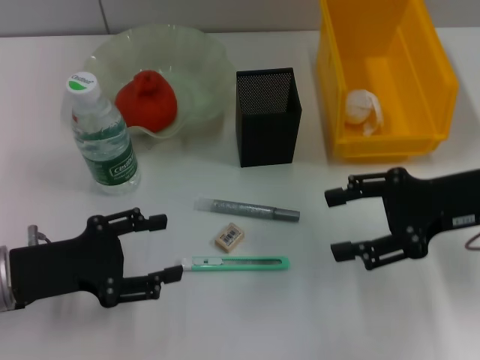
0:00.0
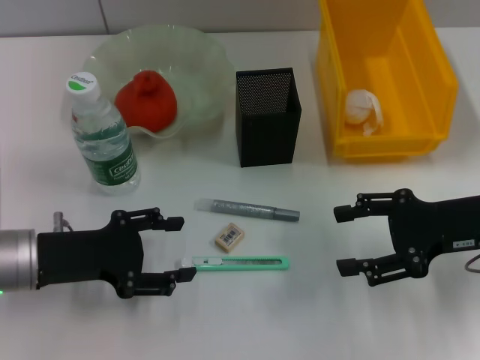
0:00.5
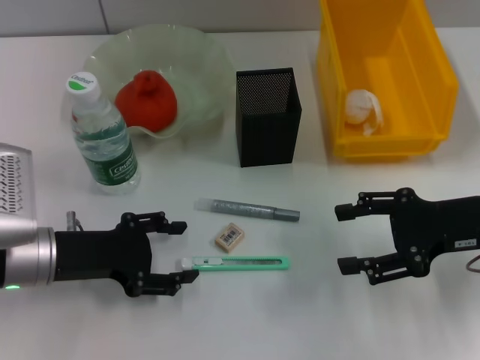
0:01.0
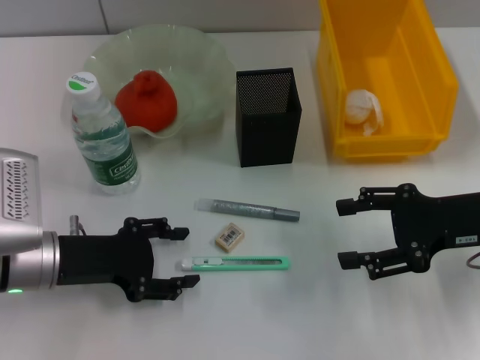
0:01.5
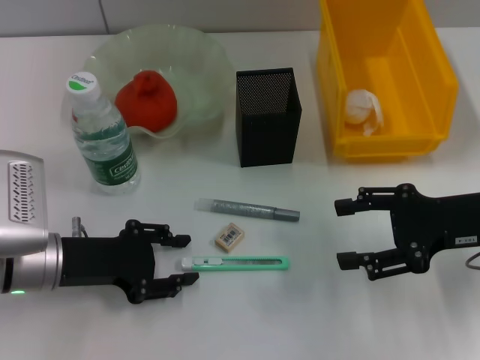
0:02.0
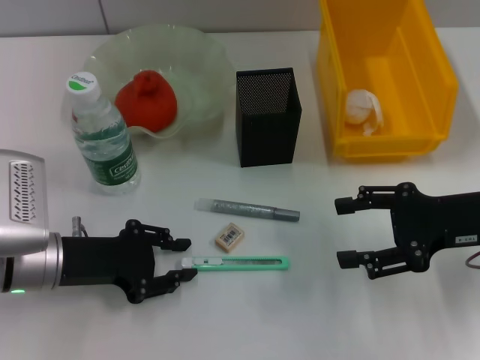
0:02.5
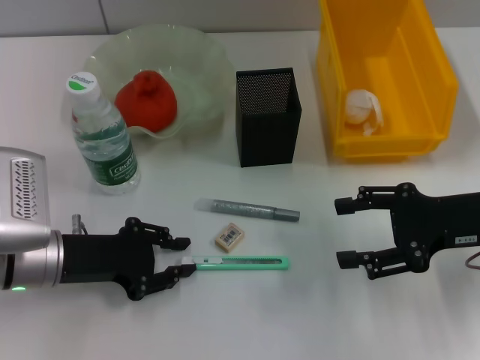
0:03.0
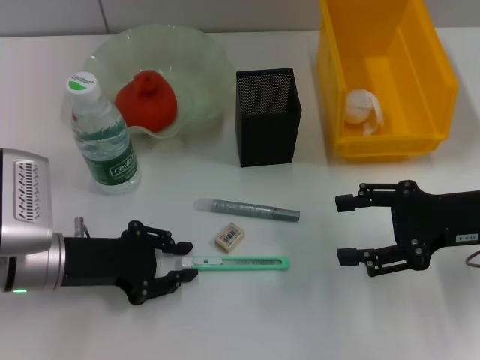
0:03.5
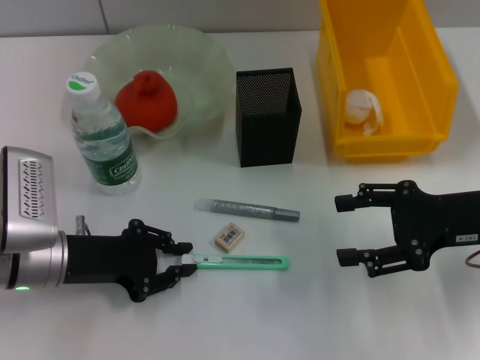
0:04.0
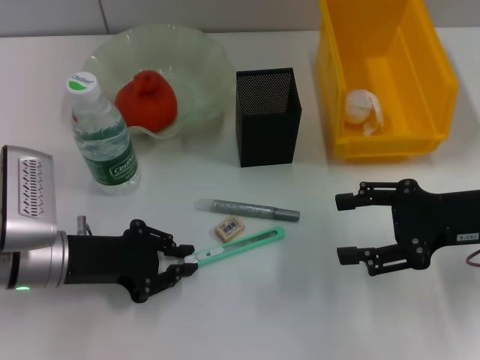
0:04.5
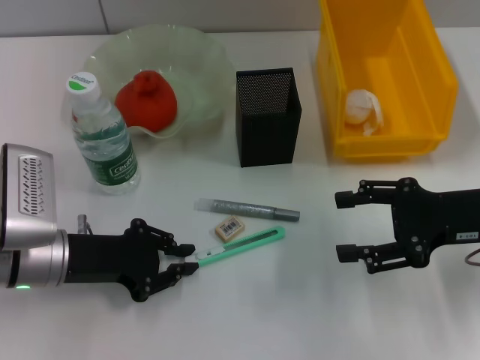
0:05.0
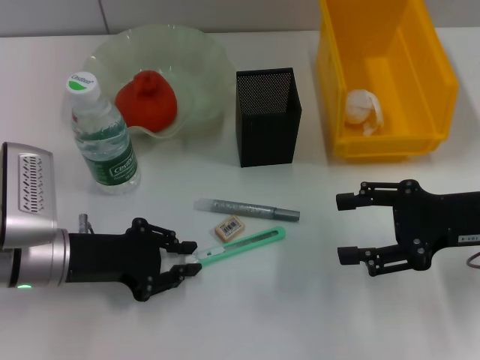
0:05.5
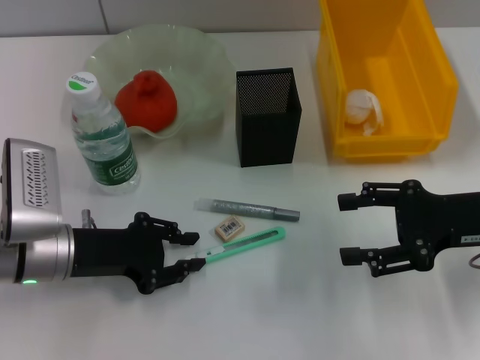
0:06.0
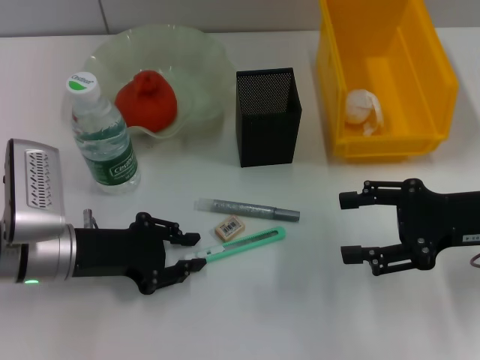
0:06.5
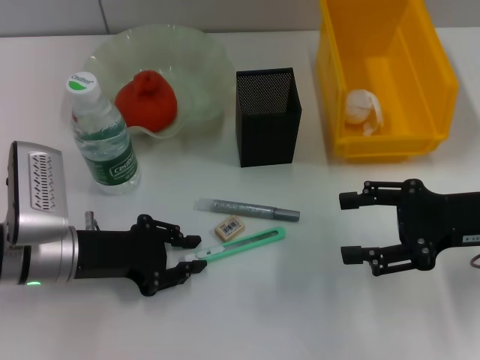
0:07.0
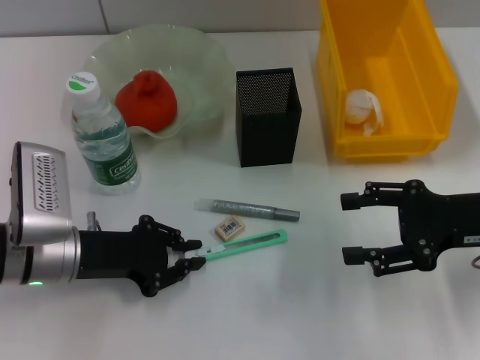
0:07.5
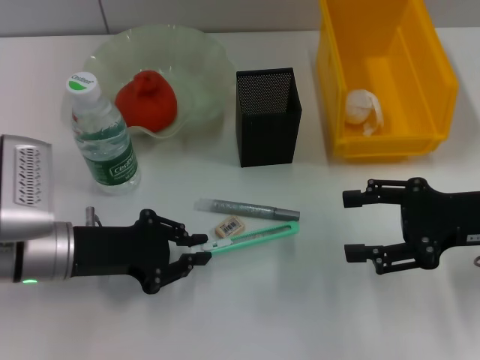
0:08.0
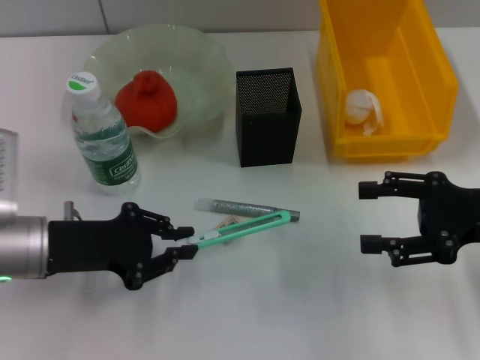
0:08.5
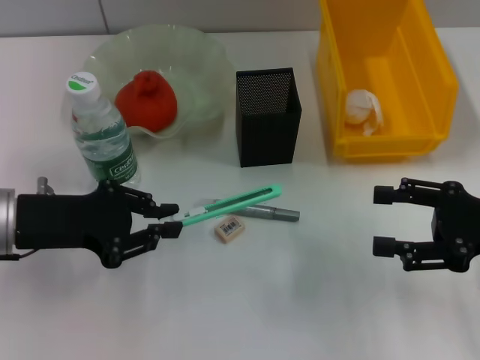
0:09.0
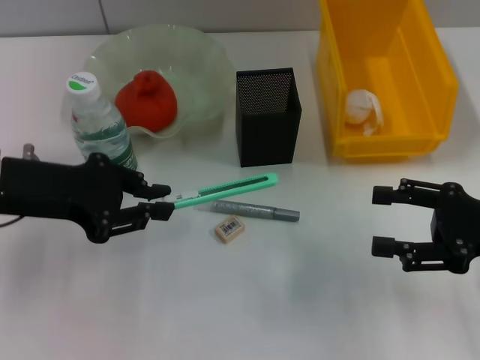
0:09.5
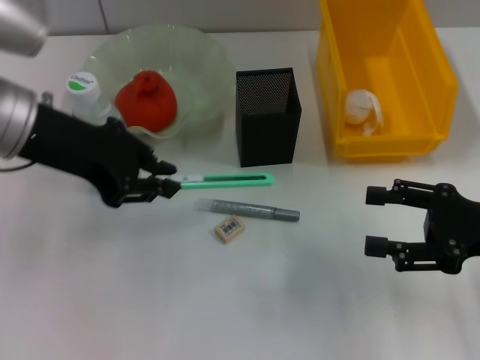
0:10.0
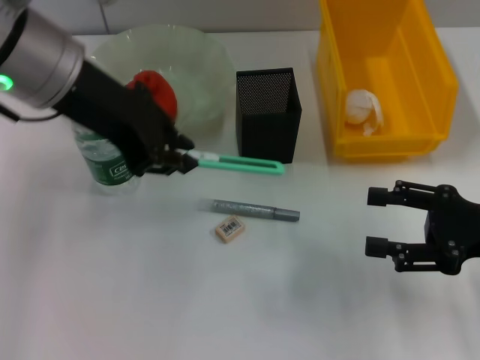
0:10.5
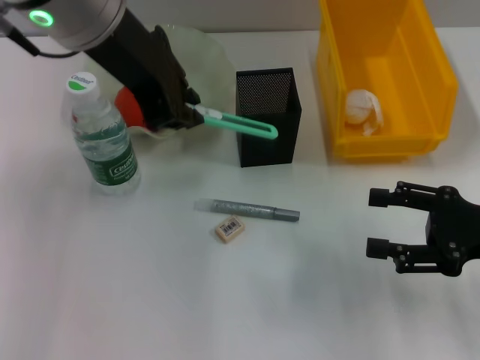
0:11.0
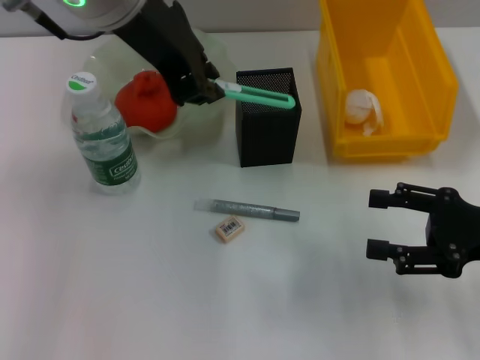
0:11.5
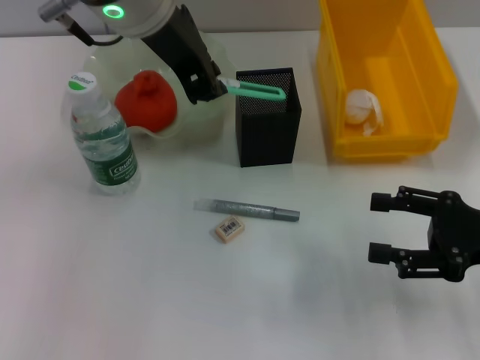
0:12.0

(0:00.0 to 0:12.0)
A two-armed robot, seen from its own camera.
Step, 0:00.0 - 0:07.5: Grab the blue utility knife with the left hand.
0:00.0 - 0:02.0: There are only small adjustments of the grippers.
0:02.0 - 0:04.0: The left gripper closes up.
0:04.0 - 0:06.0: Neither gripper changes place.
0:06.0 - 0:08.0: Both grippers stay about where they are.
0:08.0 - 0:10.0: The left gripper travels upward by some 15 cm.
0:10.0 - 0:12.0: The left gripper travels to the right and upward by roughly 15 cm.

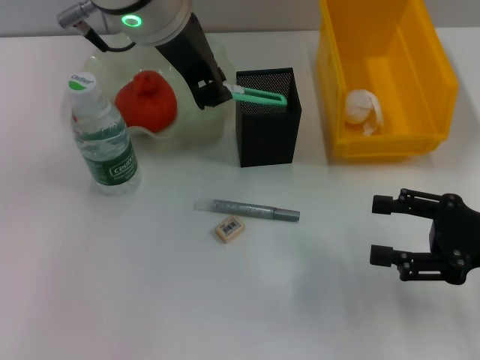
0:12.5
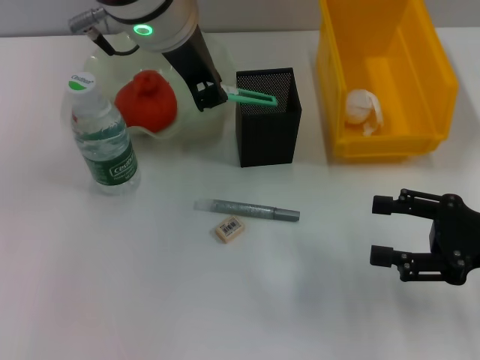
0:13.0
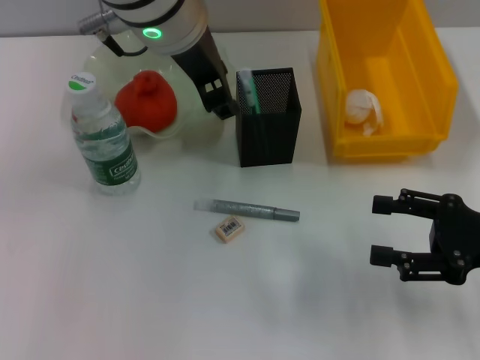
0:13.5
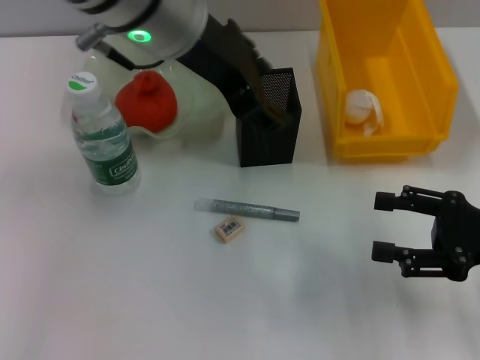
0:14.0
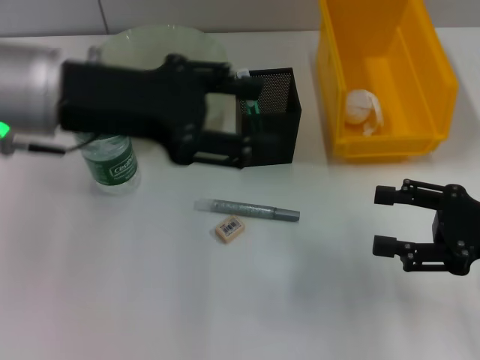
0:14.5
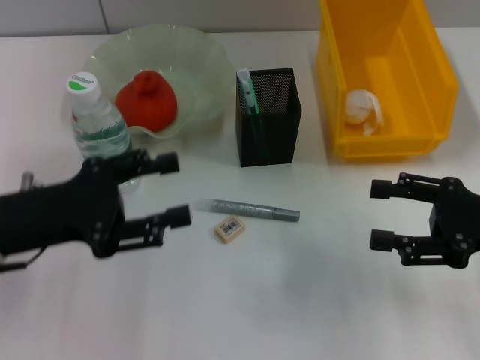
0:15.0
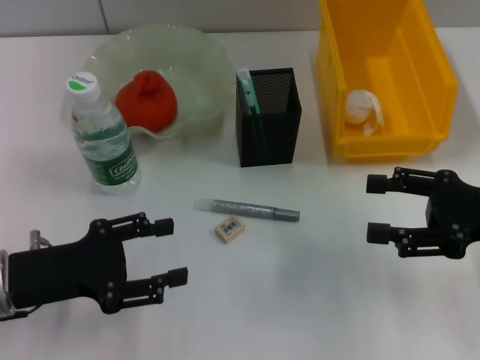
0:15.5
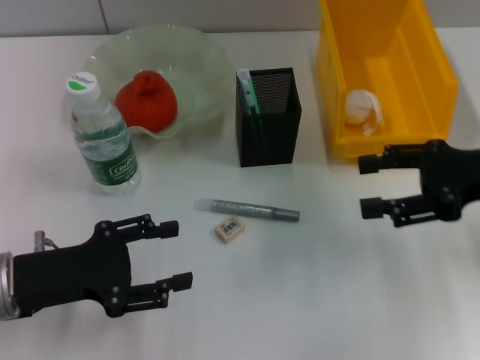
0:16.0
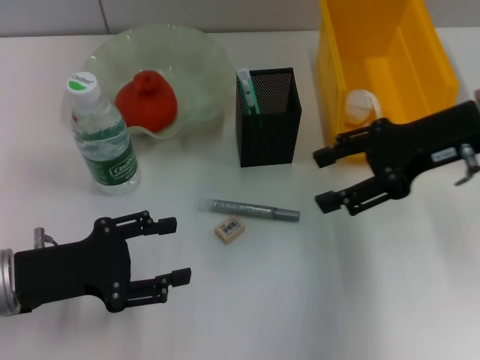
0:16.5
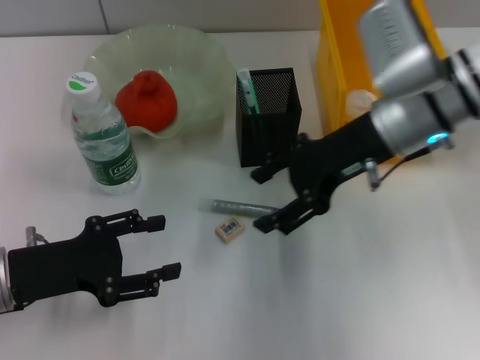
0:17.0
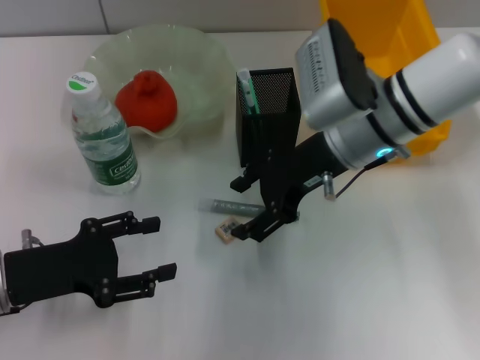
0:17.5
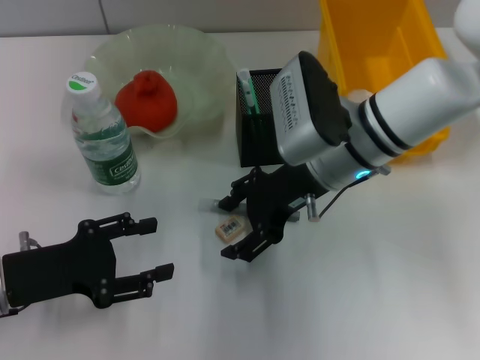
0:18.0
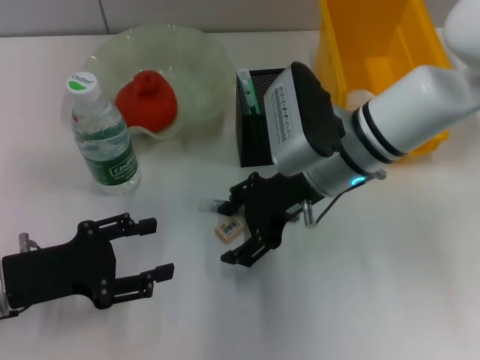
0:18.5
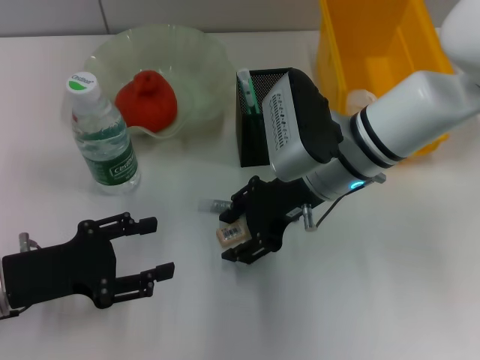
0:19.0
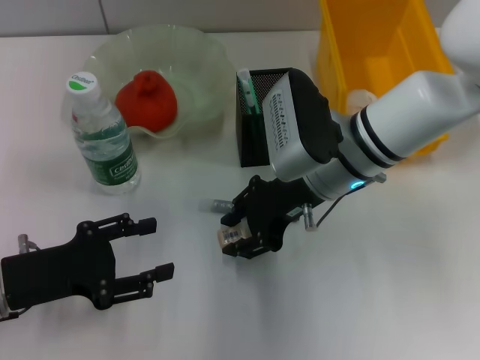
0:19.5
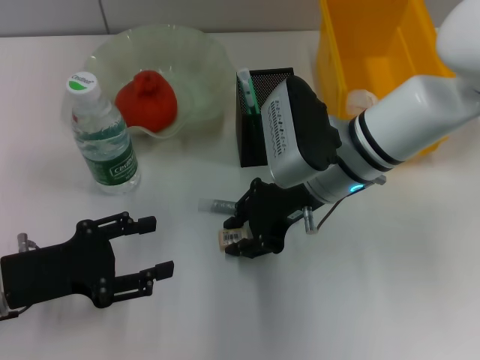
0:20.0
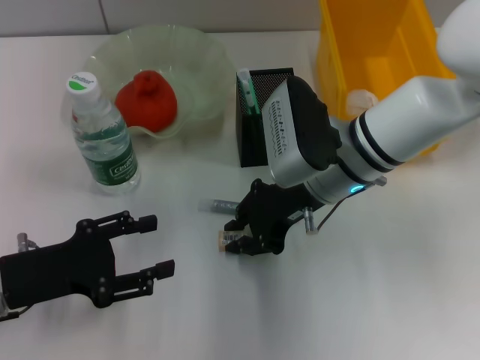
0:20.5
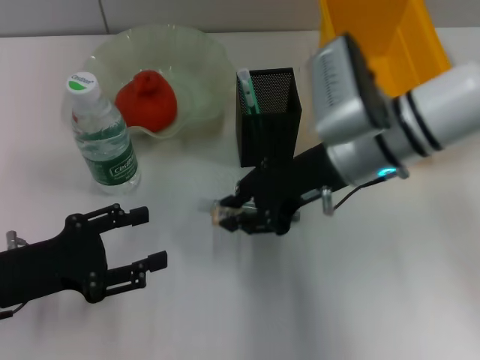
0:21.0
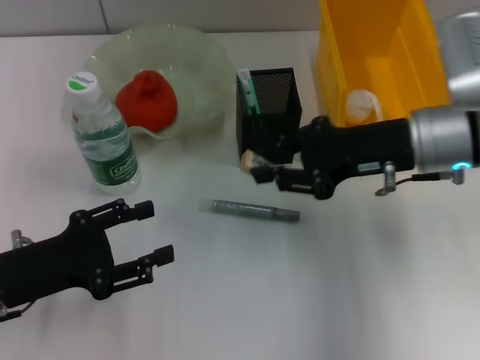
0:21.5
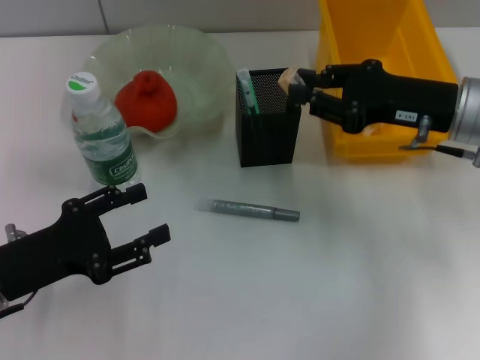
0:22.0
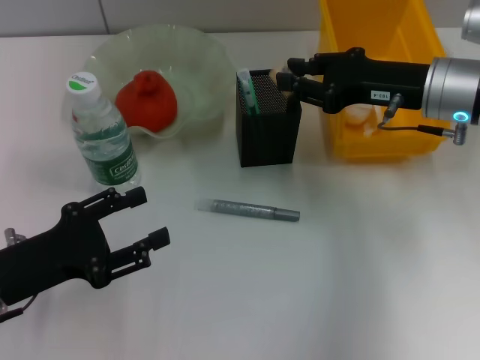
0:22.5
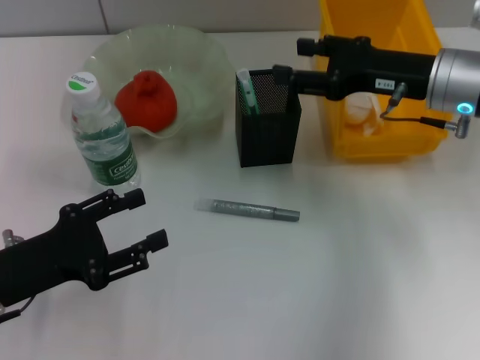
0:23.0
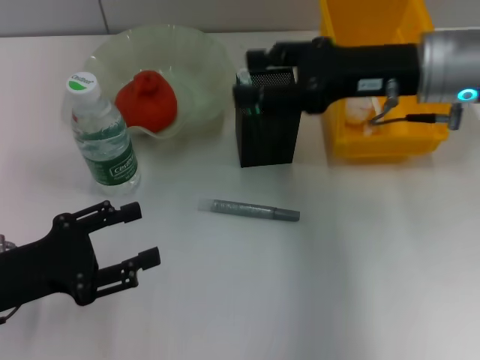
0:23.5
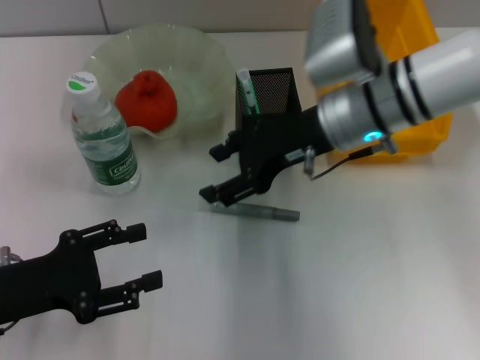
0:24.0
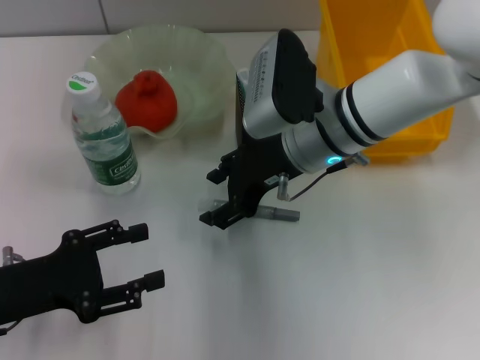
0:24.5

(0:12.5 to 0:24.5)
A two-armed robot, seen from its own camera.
Step, 0:14.0 - 0:20.0: Grab the eraser with the right hand.
Step, 0:21.0 - 0:23.0: Put the eraser into the pen holder with the right hand.
0:12.5 - 0:14.5: The left gripper goes about 10 cm to the left and backward, and opens its fingers.
0:14.5 - 0:16.5: The right gripper goes some 15 cm forward, upward and to the left; the left gripper goes some 20 cm downward, to the left and backward.
0:16.5 - 0:18.5: The right gripper goes approximately 15 cm to the left and downward.
0:18.5 - 0:20.5: The right gripper closes up.
0:20.5 - 0:22.5: The right gripper moves to the right, roughly 10 cm.
0:22.5 - 0:24.5: The right gripper travels to the left by about 15 cm, and opens.

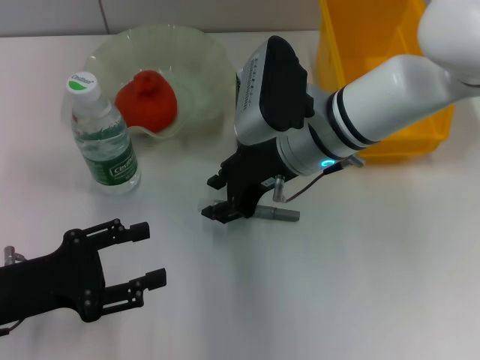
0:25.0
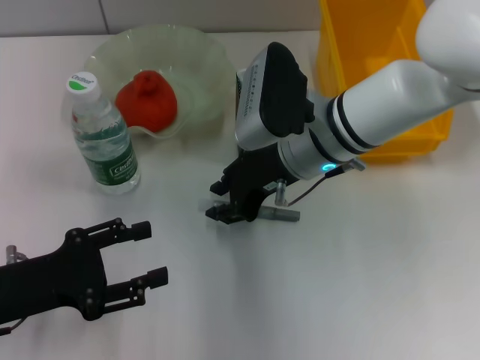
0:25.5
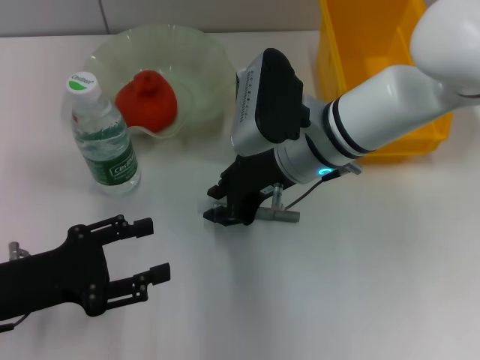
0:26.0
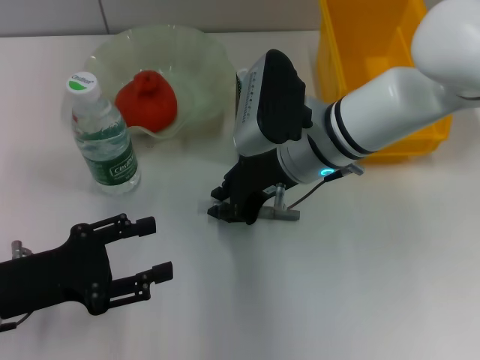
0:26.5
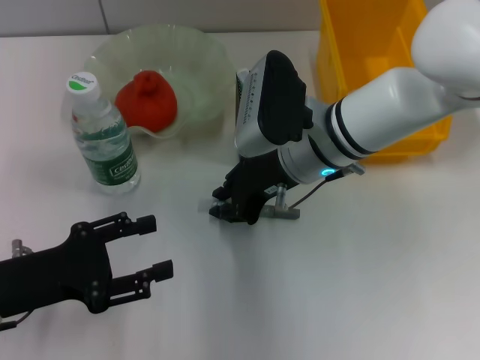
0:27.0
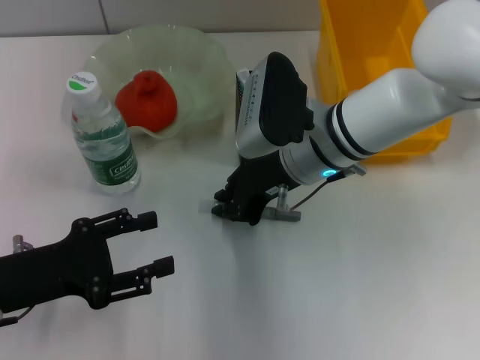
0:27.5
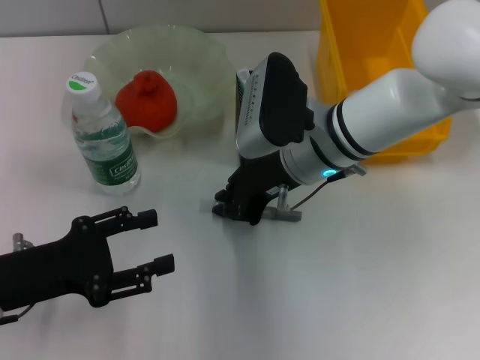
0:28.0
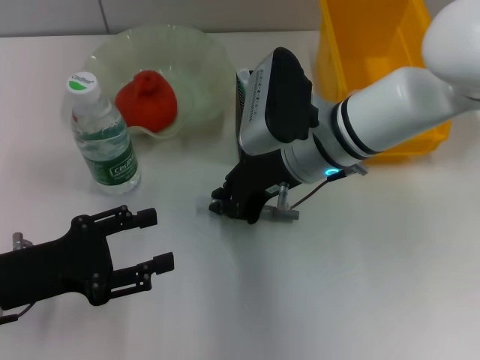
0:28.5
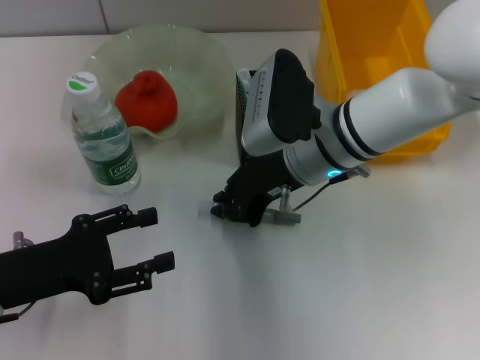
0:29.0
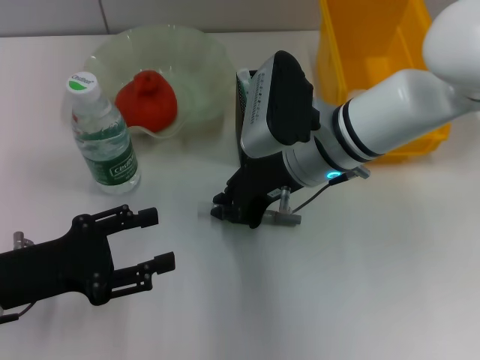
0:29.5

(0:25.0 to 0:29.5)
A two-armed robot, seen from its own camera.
0:25.0 - 0:27.0: The right gripper closes its fingers.
0:27.0 - 0:29.5: Both grippers stay put.
